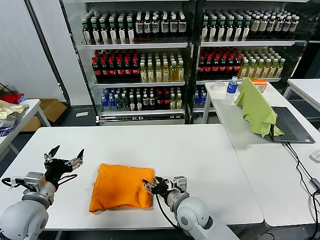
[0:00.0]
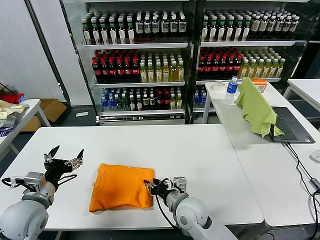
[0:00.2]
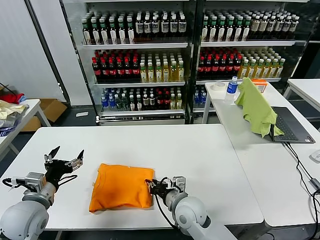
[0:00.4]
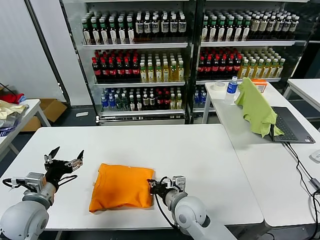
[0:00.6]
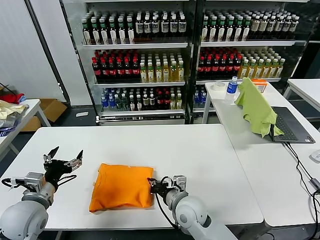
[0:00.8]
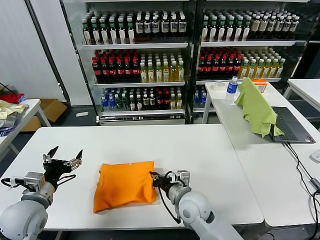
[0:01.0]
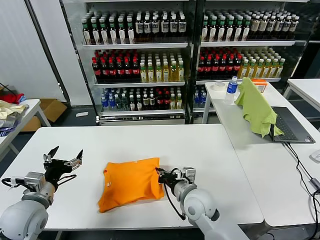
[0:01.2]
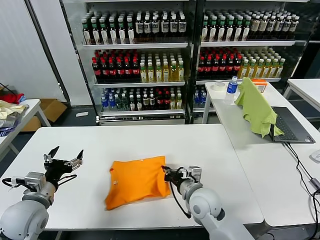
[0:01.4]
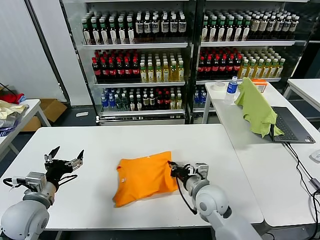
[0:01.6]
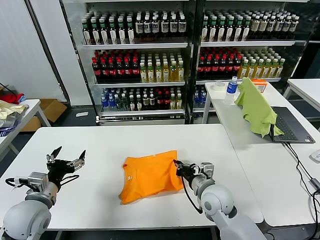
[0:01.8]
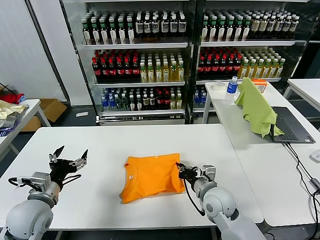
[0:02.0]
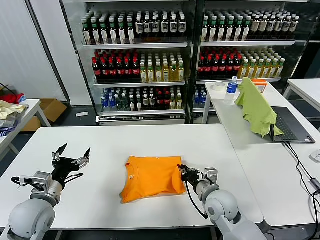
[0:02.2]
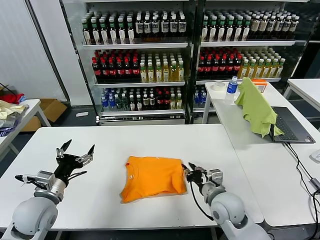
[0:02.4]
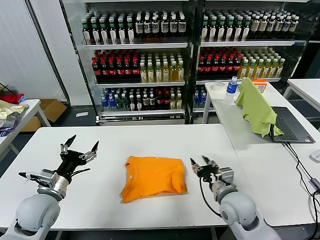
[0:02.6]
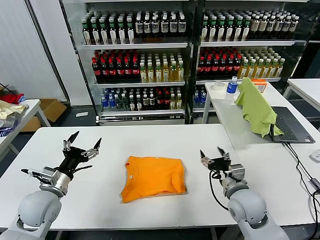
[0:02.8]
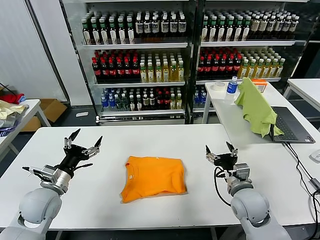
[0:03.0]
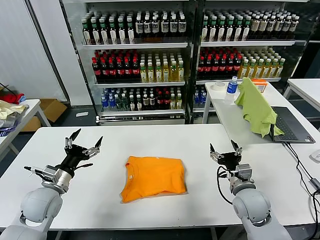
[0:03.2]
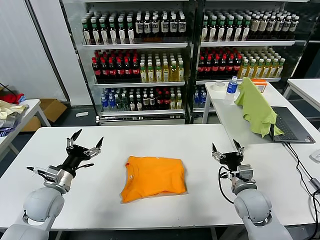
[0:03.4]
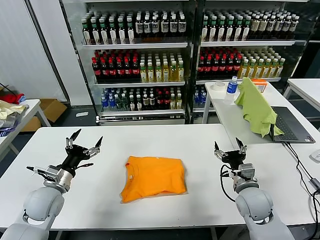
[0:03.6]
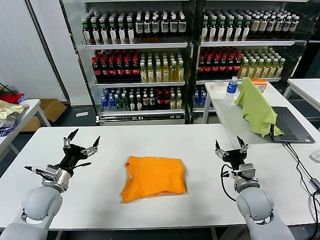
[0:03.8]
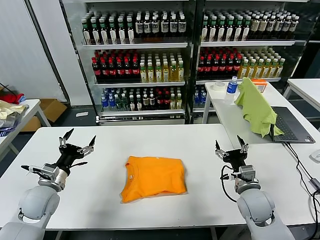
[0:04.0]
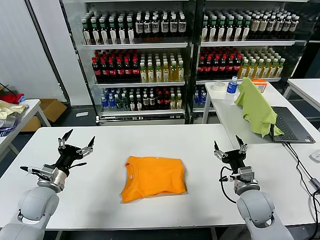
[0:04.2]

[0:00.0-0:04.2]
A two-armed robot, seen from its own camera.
Task of the whole recording: fold and organize the clothes.
Step, 0:00.0 to 0:02.2: Drag the clothes to the center of the table.
0:00.0 to 0:01.4: The right gripper closes its fingers.
0:01.4 to 0:02.8: The right gripper heads to the right, covering roughly 10 cm, and opens its fingers.

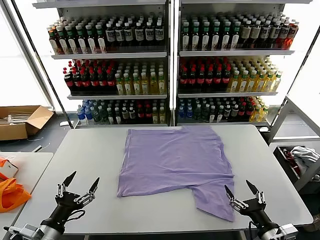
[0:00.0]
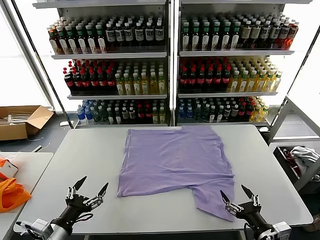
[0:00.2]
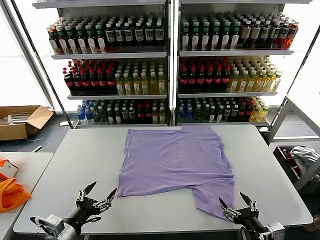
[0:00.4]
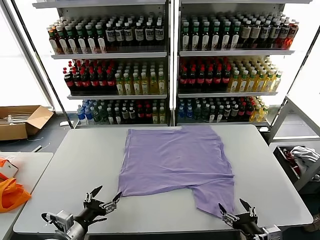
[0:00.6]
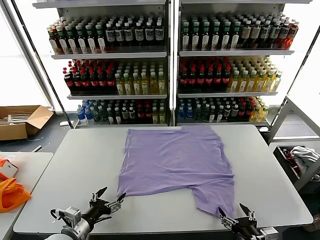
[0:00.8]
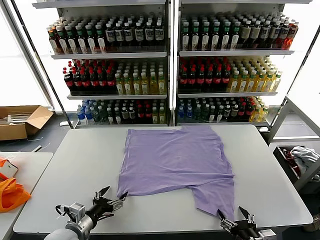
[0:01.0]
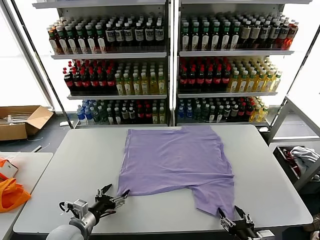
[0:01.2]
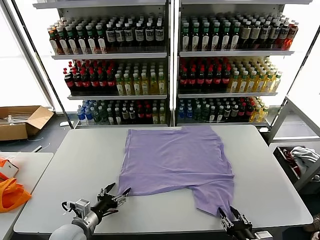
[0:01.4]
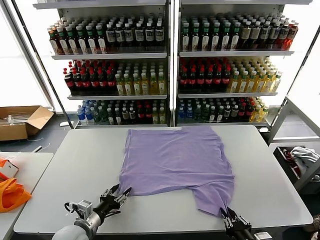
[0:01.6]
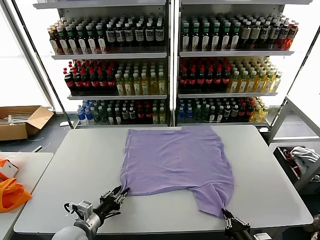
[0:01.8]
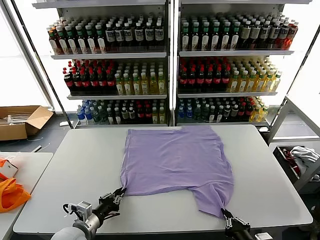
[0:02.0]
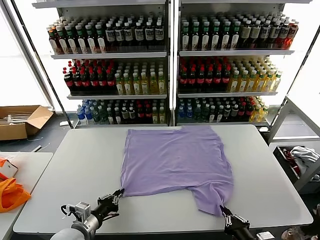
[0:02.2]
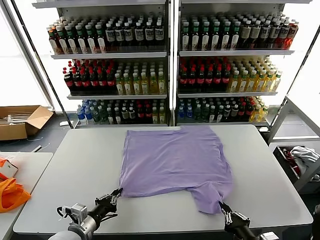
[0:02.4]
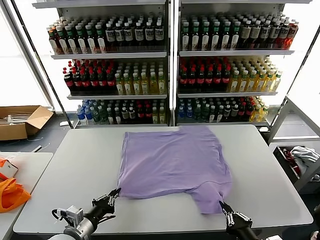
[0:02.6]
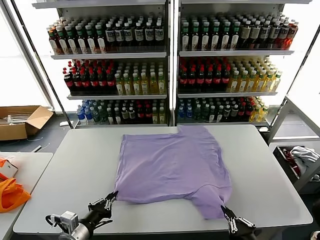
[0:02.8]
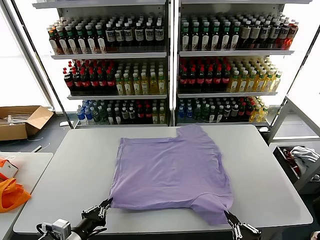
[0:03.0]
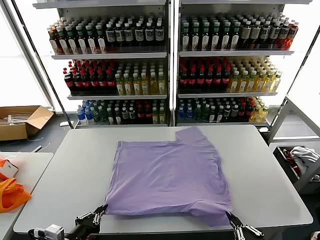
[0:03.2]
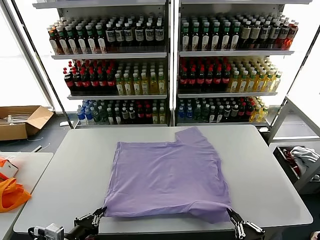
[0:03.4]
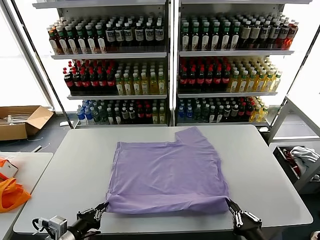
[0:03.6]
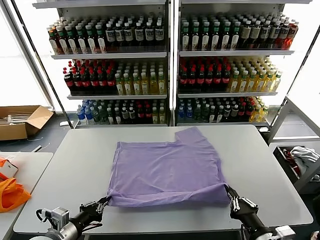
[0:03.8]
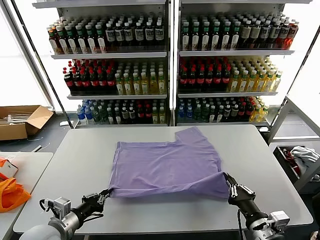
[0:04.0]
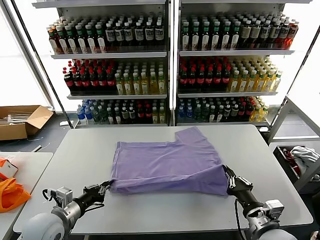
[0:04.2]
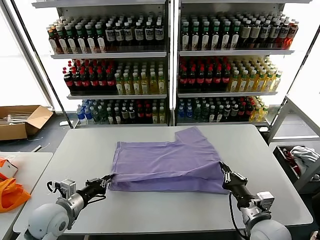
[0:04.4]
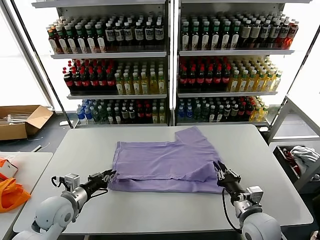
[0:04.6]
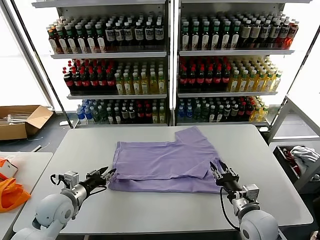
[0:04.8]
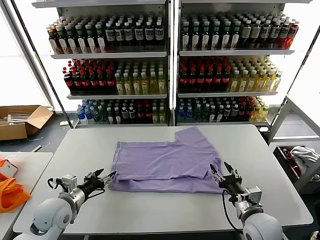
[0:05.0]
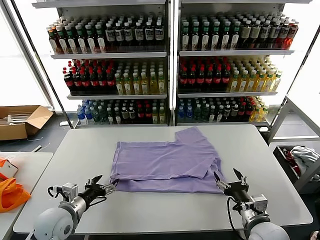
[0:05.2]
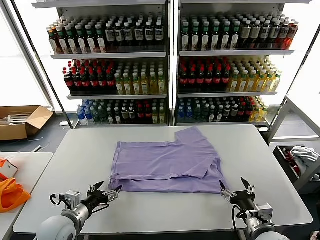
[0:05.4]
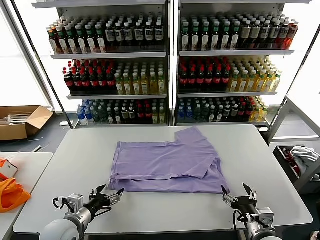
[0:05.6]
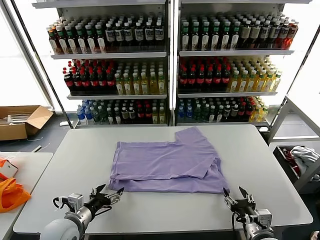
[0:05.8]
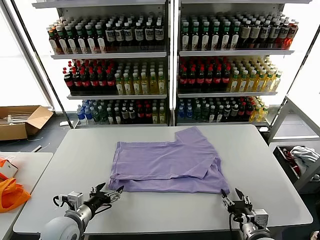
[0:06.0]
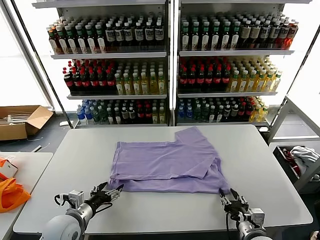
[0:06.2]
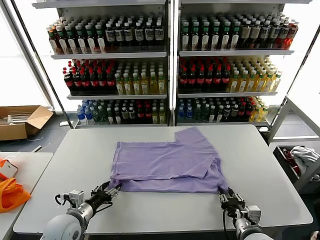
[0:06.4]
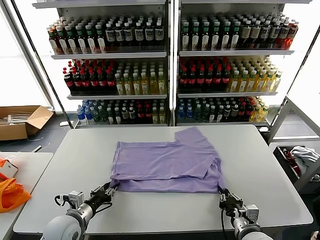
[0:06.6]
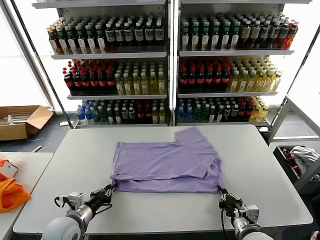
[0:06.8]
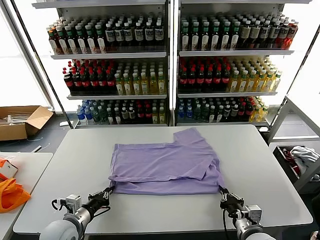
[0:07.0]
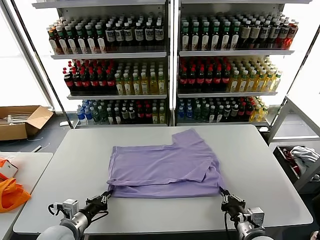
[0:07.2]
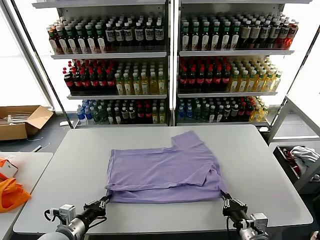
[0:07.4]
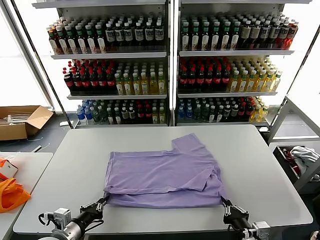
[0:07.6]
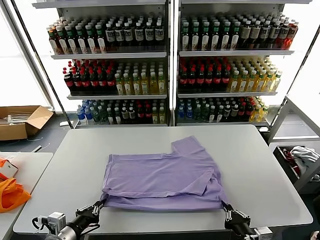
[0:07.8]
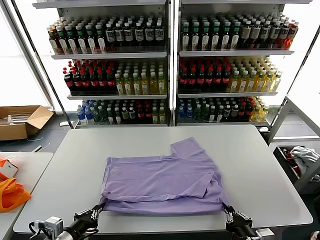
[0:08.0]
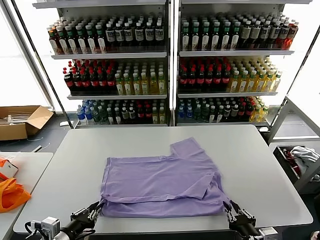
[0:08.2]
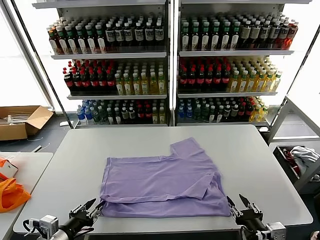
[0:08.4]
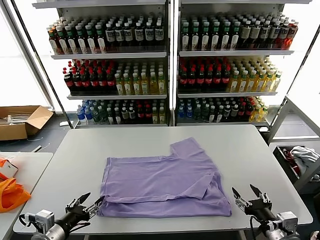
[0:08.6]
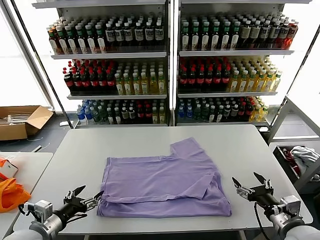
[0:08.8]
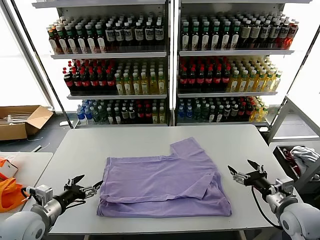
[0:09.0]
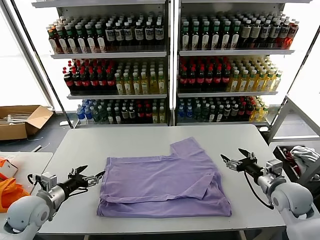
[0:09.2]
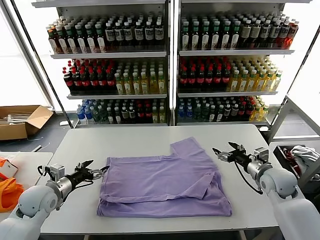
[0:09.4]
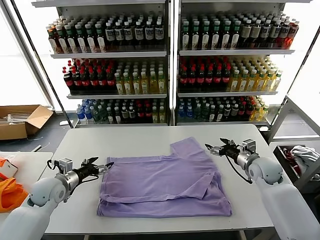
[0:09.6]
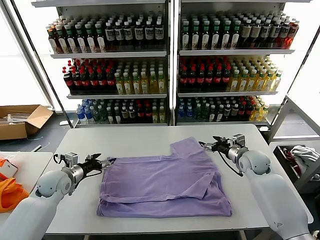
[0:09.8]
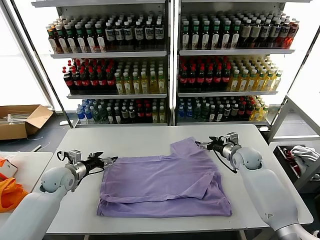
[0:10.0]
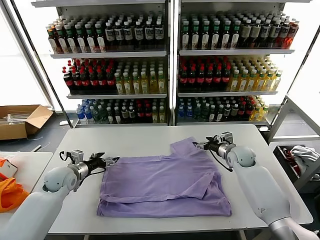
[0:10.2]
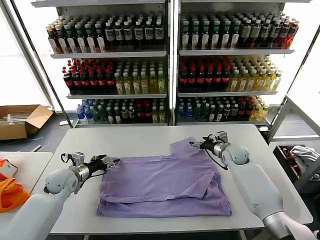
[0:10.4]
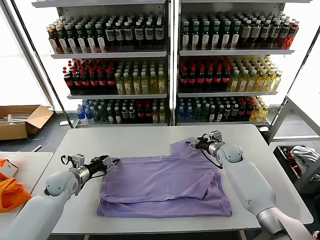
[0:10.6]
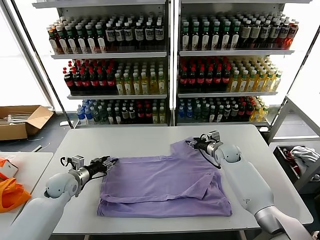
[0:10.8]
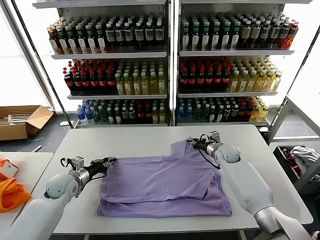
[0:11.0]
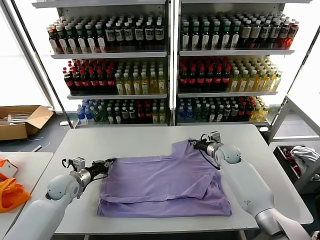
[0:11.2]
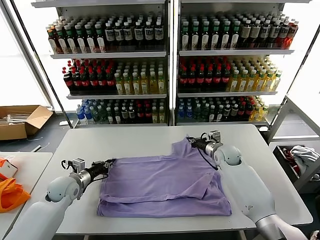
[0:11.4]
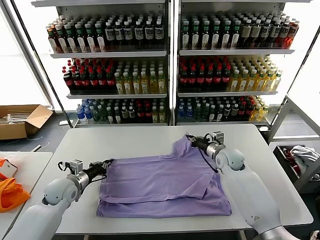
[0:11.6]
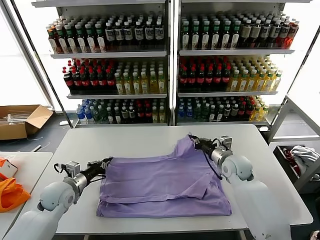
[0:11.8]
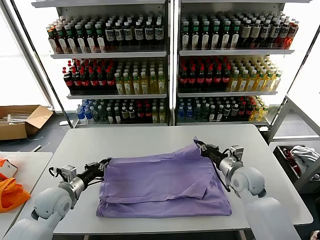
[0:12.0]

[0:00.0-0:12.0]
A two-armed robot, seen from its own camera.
Task of the whole recording: fold and organize the clothes.
Step, 0:00.0 to 0:02.2: use both grippers simultaneously to clamp the lower edge of the clothing fabric.
Step, 0:02.4 to 0:04.6: use both grippers to drag the lower edge of the fabric forward and fold it over the upper edge.
Step, 0:04.8 to 0:08.2: Drag the clothes downward with both gripper.
Step, 0:08.4 to 0:11.2: use both grippers simultaneously to clamp the upper edge of the clothing fabric.
0:01.6 to 0:03.0: The right gripper travels upward and backward by roughly 10 cm. The left gripper shifts some 10 cm backward and upward, and closes up.
0:03.0 to 0:04.4: The two grippers go about 15 cm forward.
0:04.4 to 0:06.0: The right gripper ends up approximately 5 cm from where it was, and opens its fingers. The left gripper moves some 5 cm, and opens its fingers.
0:06.0 to 0:07.6: The right gripper changes place by approximately 5 cm, and closes its fingers; the left gripper is displaced backward by roughly 5 cm, and closes up.
0:07.6 to 0:09.0: The left gripper heads to the left, covering about 5 cm, and opens up, while the right gripper shifts roughly 20 cm forward, to the right and upward, and opens up.
0:09.0 to 0:10.4: Both grippers travel together forward, approximately 20 cm.
0:10.4 to 0:12.0: The right gripper moves backward, roughly 15 cm, and closes its fingers, while the left gripper goes about 10 cm backward, and closes up.

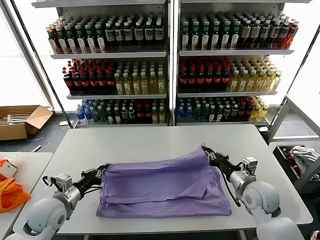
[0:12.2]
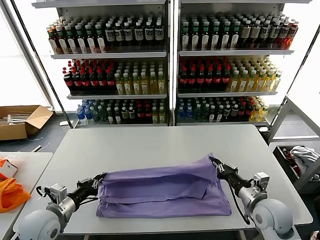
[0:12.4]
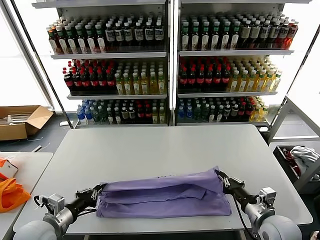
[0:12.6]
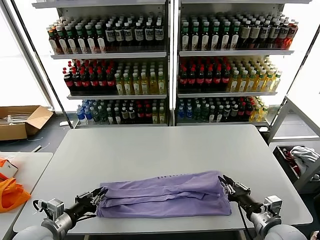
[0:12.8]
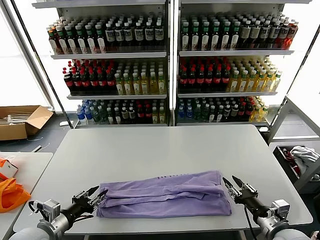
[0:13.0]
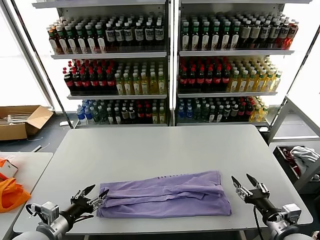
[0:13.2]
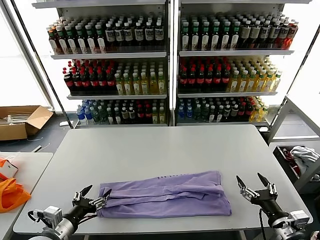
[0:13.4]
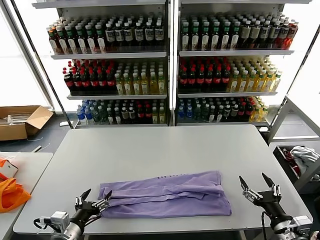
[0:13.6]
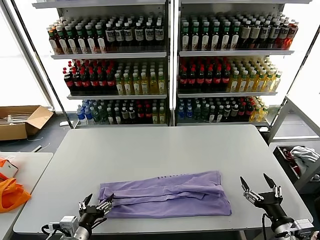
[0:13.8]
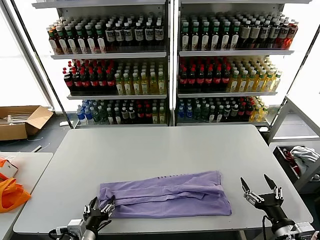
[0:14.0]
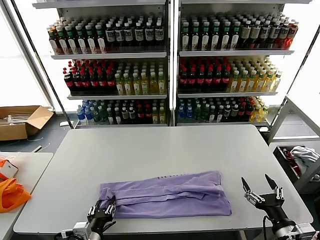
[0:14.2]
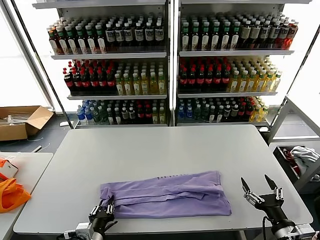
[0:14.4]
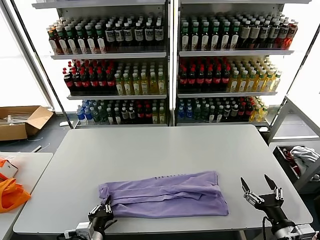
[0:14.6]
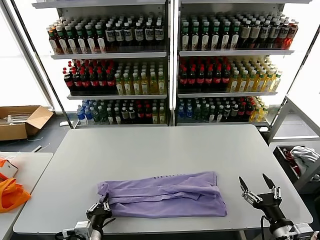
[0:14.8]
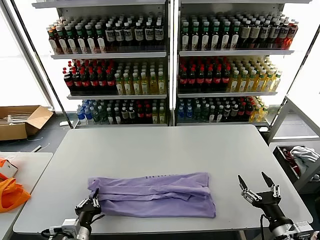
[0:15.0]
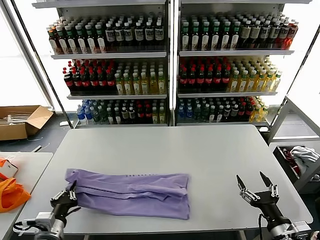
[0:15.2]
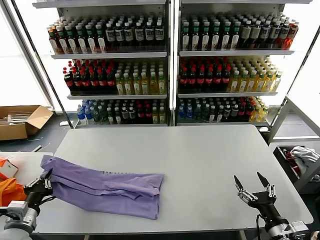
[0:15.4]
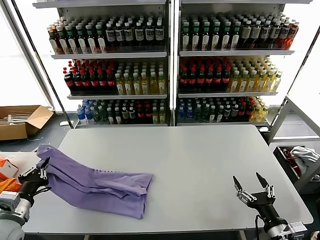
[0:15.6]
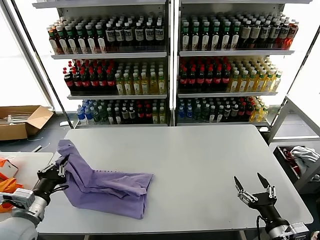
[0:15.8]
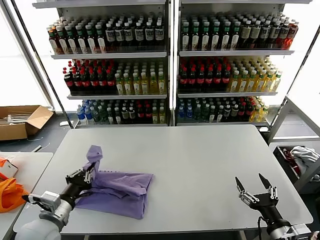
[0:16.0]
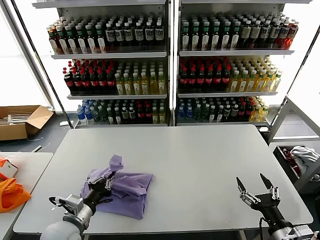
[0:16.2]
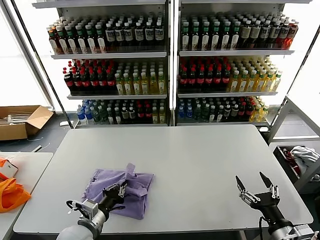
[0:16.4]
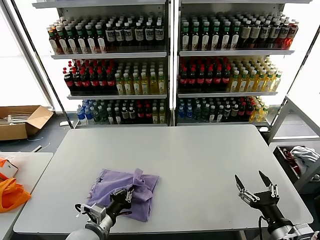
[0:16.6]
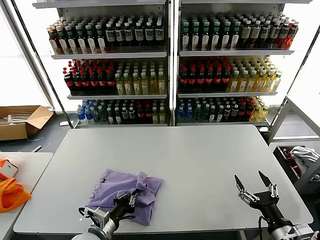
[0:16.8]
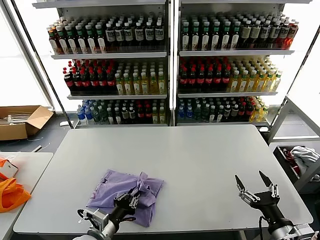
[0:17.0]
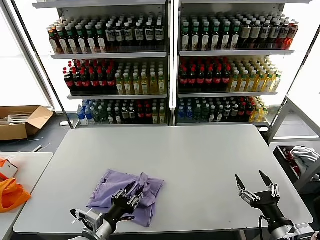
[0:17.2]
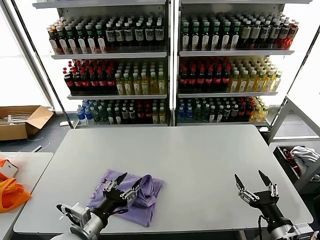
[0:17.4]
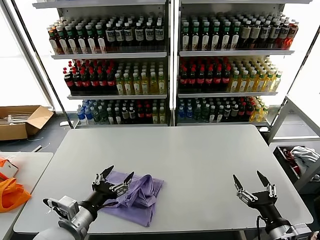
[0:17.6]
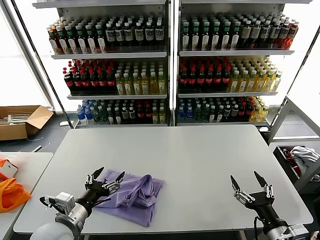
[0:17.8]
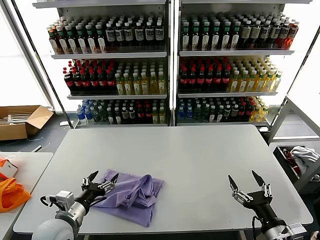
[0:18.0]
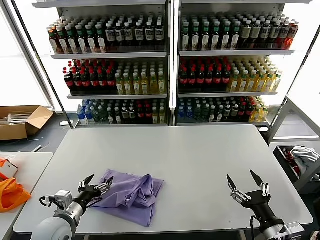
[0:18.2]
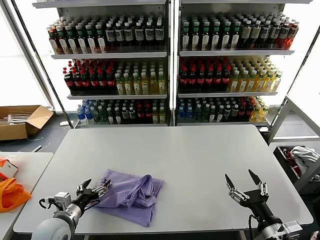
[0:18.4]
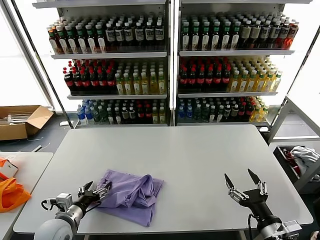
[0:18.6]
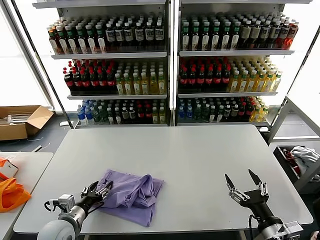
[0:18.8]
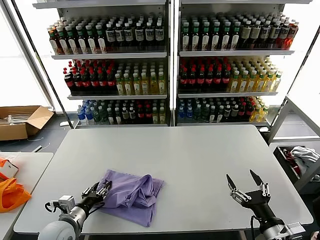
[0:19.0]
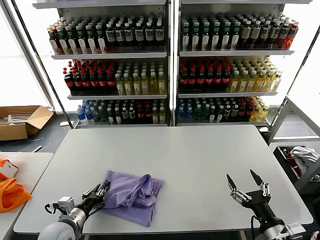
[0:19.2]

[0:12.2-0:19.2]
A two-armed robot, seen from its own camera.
Task of the whole recording: fold and organize the clothes.
Step, 0:13.0 to 0:14.6: use the left gripper to clamp the left edge of the fabric.
Step, 0:14.8 to 0:17.2: use the left gripper to drag the left edge of the fabric to the left and folds it over the right edge.
0:12.2 to 0:13.6: The left gripper heads backward, covering roughly 10 cm, and opens. Meanwhile the right gripper moves backward and to the right, some 15 cm, and opens its fingers.
0:13.6 to 0:15.0: The left gripper moves to the right, approximately 5 cm, and closes up.
0:15.0 to 0:16.4: The left gripper shifts roughly 5 cm forward, and goes to the left and returns, roughly 15 cm each way.
0:16.4 to 0:17.8: The left gripper is displaced upward by some 5 cm, and opens up.
0:17.8 to 0:19.2: The left gripper travels downward by about 10 cm, and closes up.
